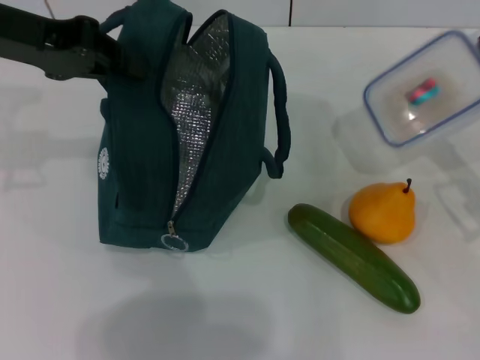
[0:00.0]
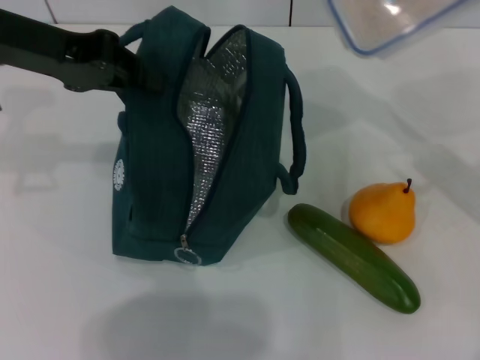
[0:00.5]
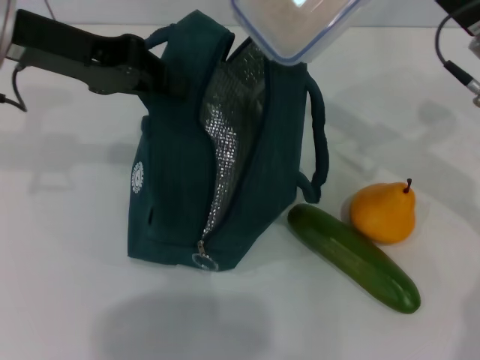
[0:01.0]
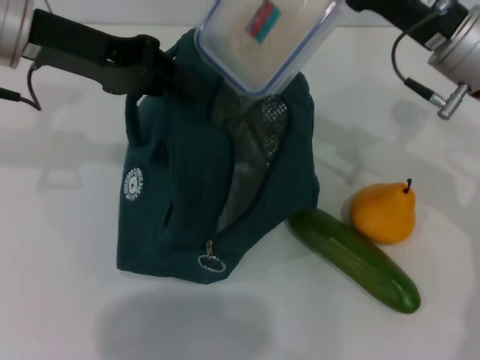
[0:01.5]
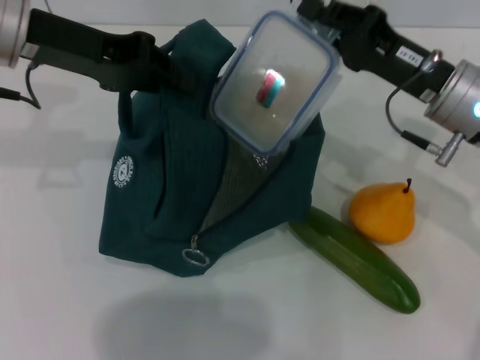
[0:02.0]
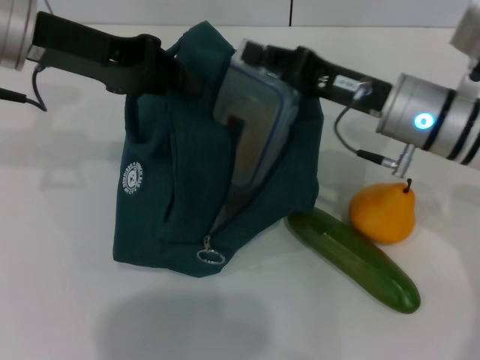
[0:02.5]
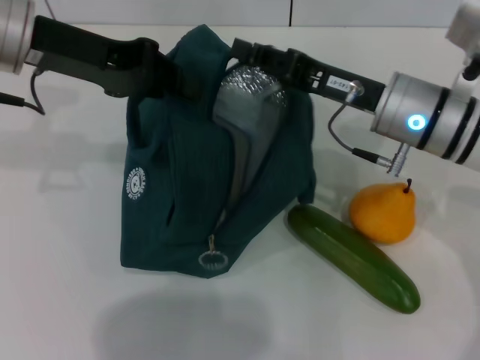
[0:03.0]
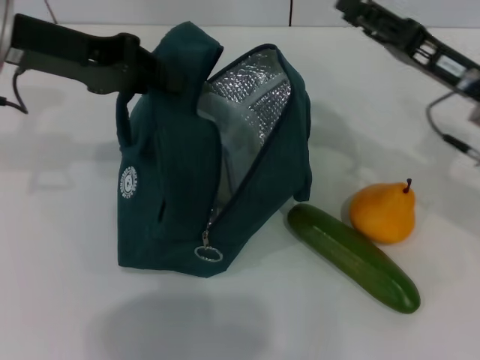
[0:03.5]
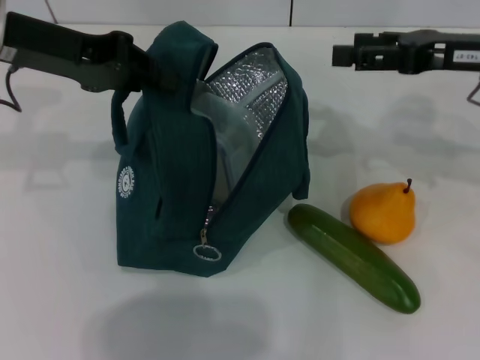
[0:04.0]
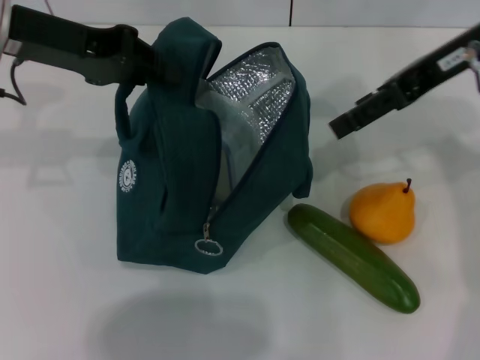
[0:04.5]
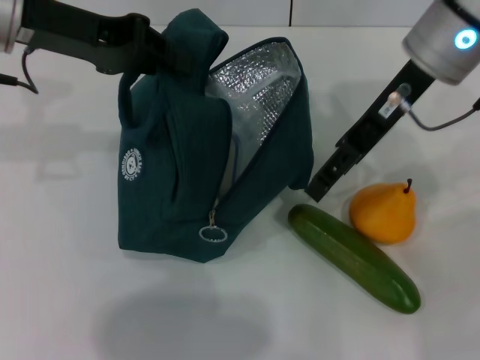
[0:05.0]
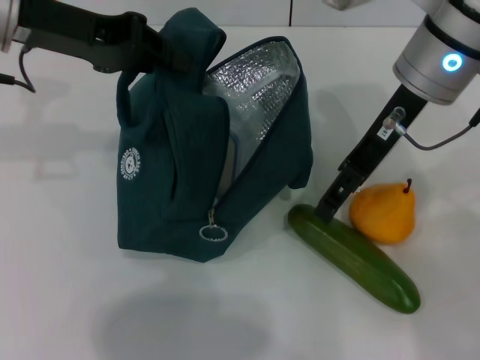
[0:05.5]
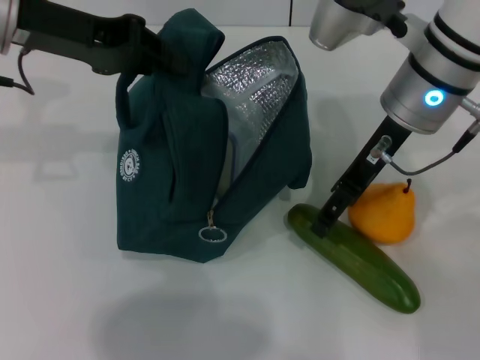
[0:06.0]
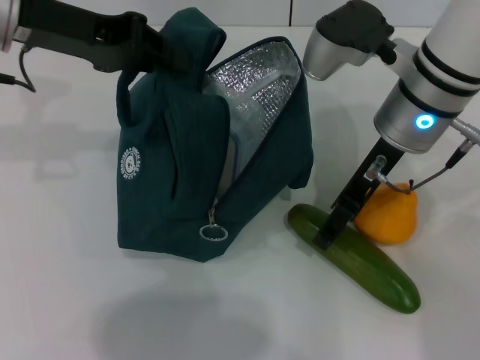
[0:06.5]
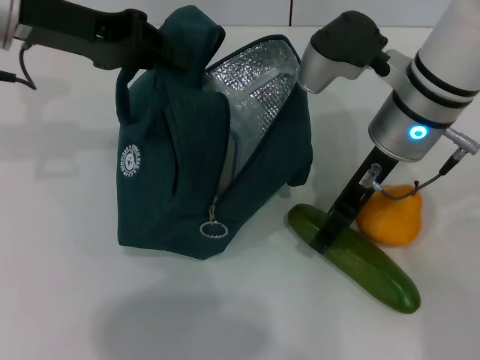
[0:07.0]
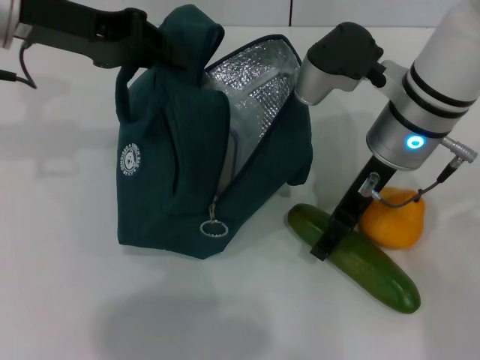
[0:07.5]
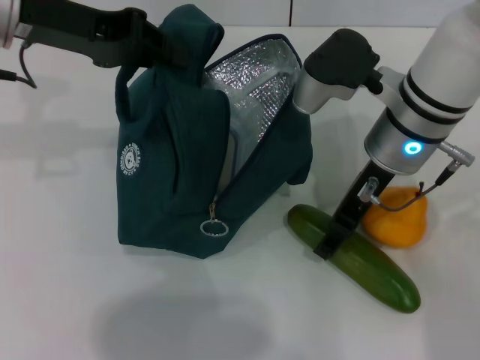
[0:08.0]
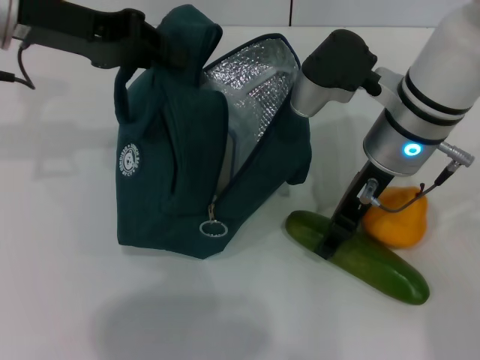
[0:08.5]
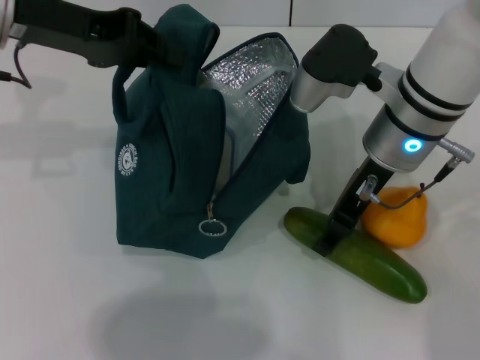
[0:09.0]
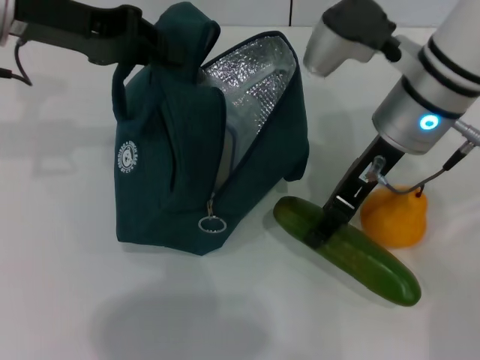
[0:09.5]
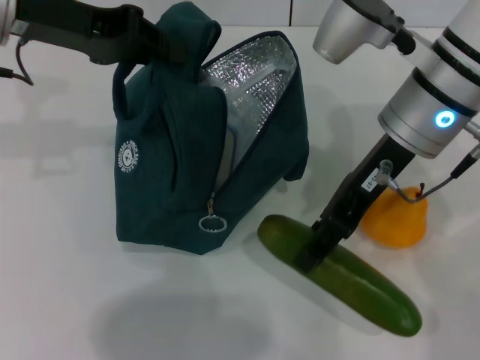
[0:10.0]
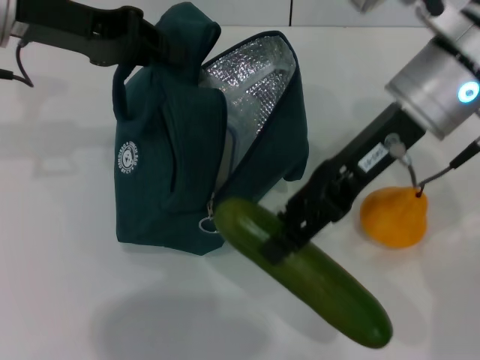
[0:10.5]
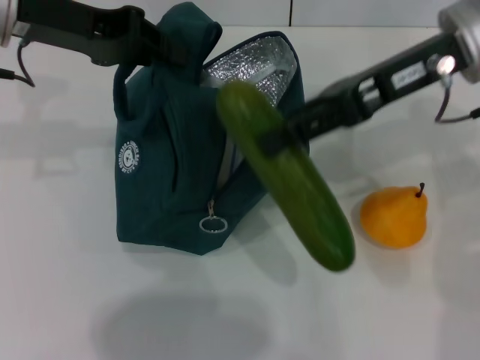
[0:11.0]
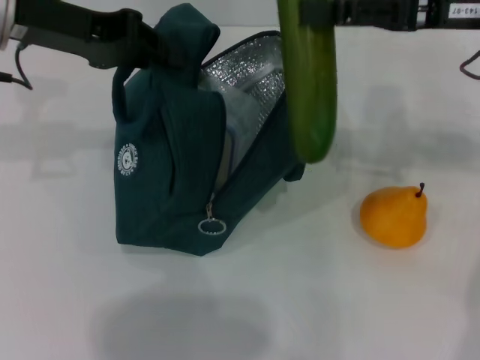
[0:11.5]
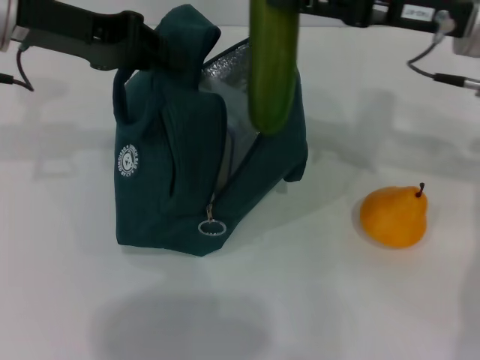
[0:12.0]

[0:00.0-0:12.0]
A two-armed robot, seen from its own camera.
Step, 0:00.0 to 0:03.0: Place the lunch box into the lunch bag with your right hand.
Step, 0:03.5 to 0:08.5: Pick up the cucumber with your right hand.
0:00.0 to 0:02.0: The right gripper travels to the left, forward and upward by about 15 cm.
0:02.0 to 0:04.0: The right gripper shifts some 10 cm upward and to the right, and opens its fingers.
0:04.0 to 0:06.0: The right gripper travels to the left by about 15 cm.
0:06.0 to 0:08.0: There are only small adjustments of the grippers.
0:10.0 to 0:12.0: The right gripper shifts some 5 cm to the right.

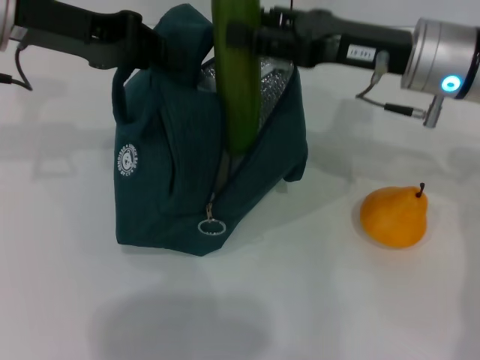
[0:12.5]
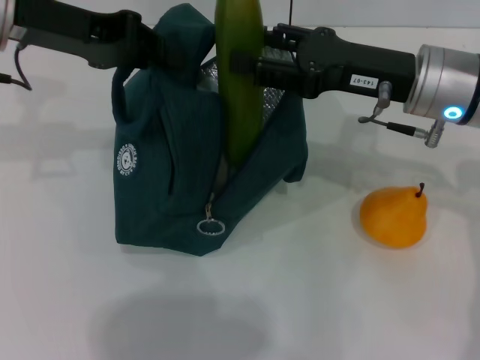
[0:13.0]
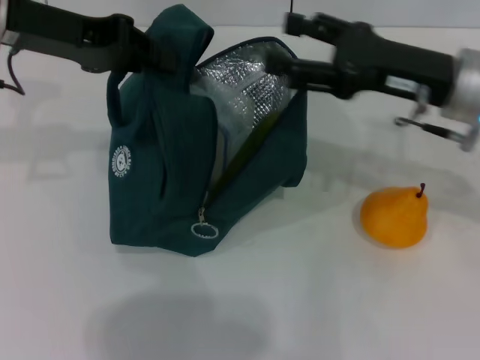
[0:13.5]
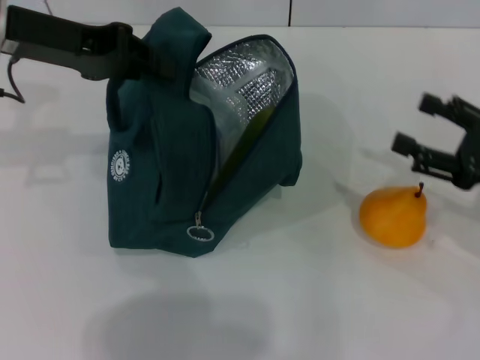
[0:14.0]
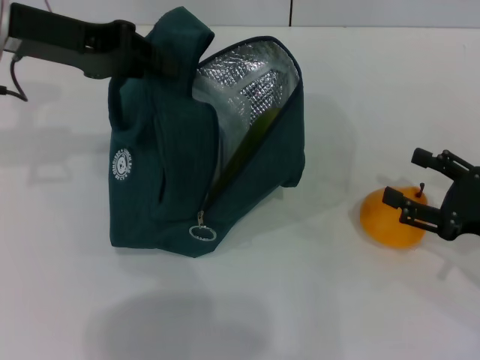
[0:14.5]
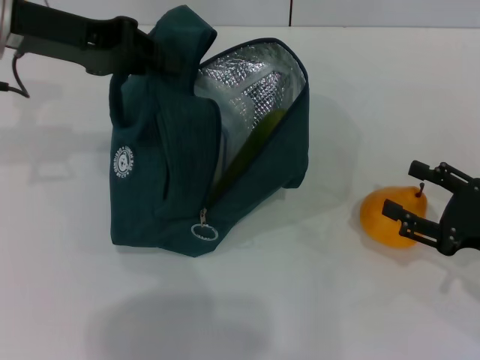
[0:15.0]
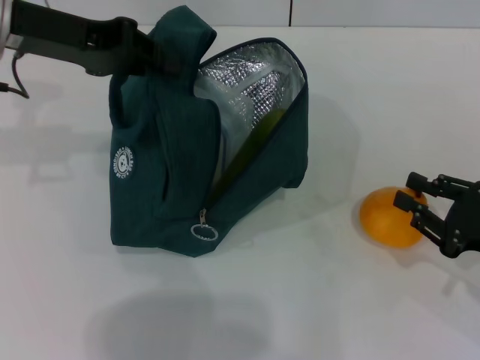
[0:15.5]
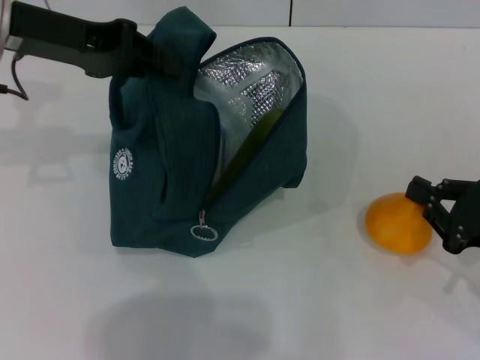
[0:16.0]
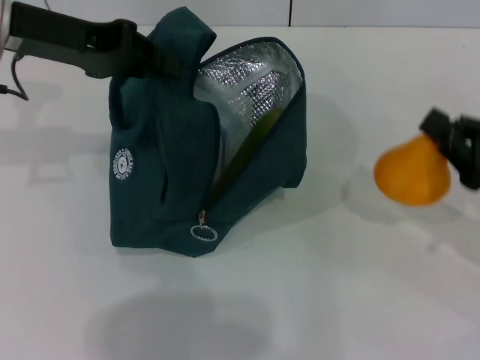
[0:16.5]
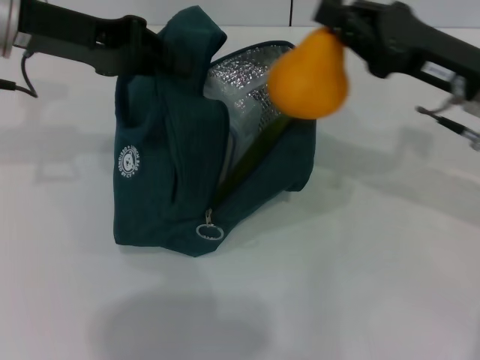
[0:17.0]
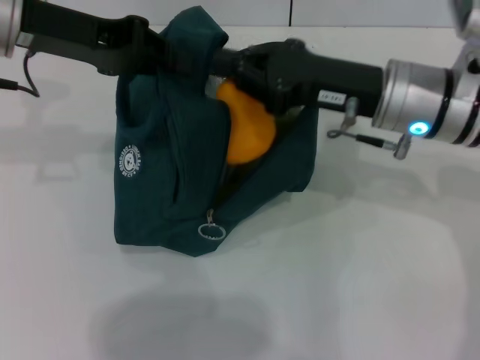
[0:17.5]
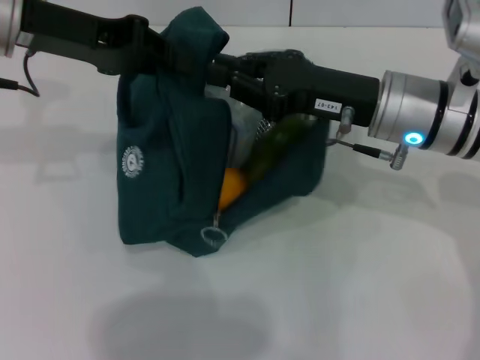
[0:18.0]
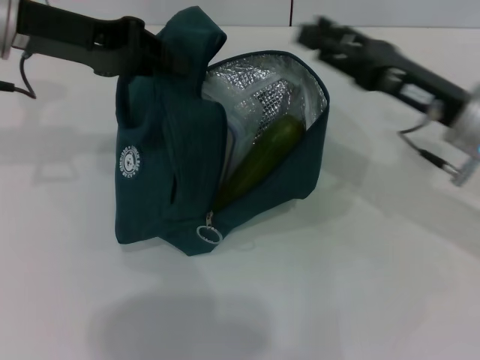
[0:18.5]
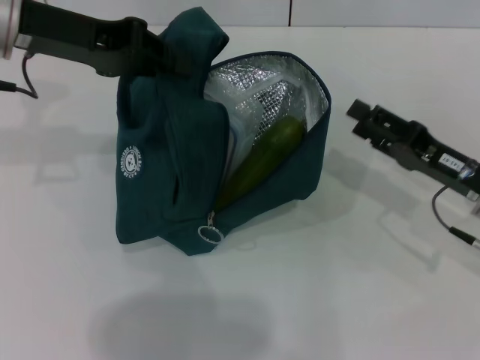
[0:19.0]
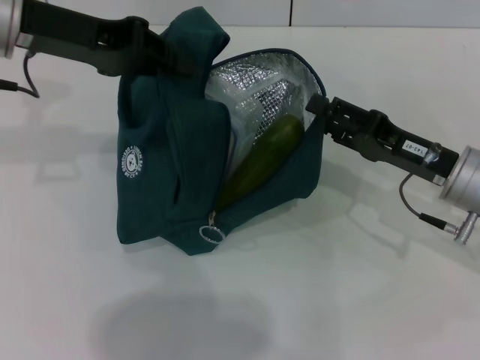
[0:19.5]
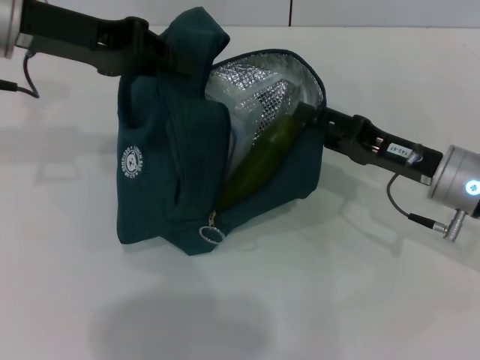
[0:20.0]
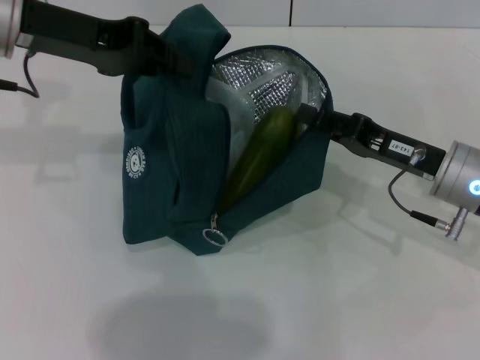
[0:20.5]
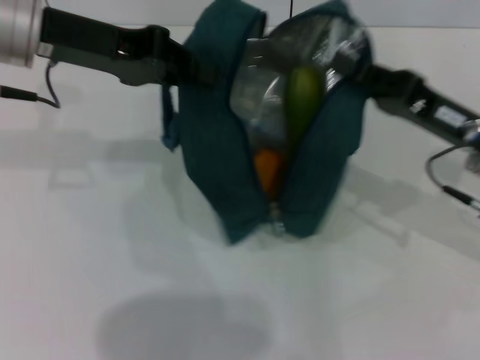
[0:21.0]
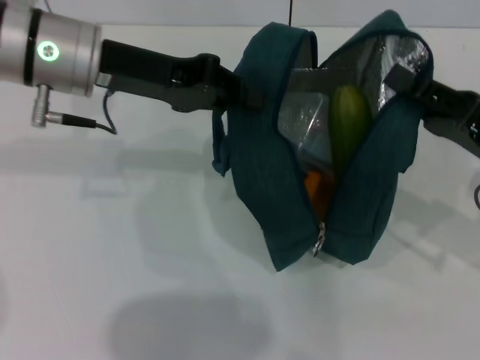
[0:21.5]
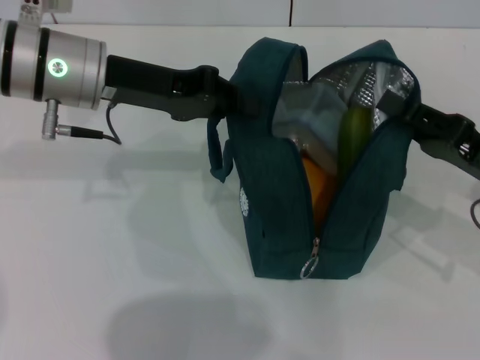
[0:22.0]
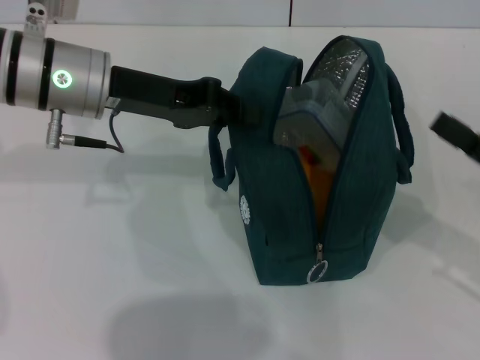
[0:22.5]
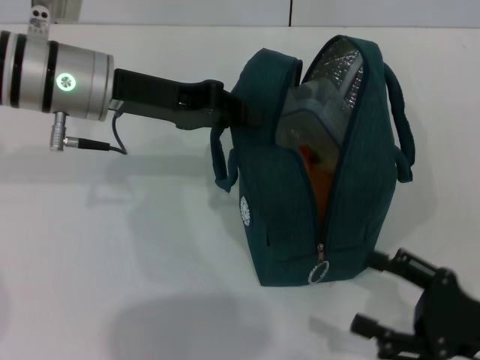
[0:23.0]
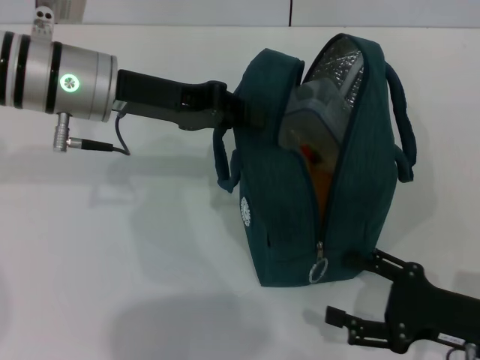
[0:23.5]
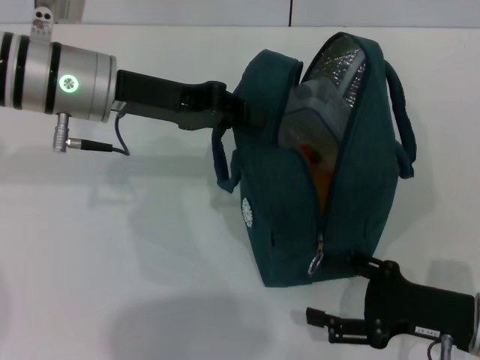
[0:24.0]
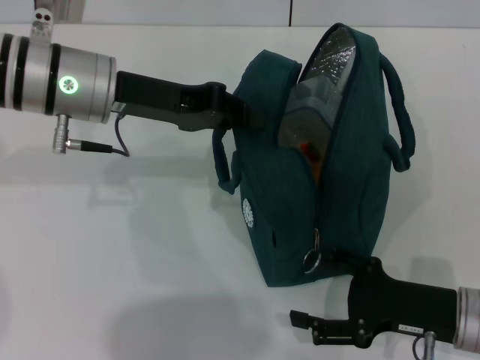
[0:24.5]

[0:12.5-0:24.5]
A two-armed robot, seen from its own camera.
Step, 0:14.0 to 0:16.0: Grab the pear with your right hand.
Step, 0:18.5 to 0:22.5: Hold the lunch bag with your right hand.
0:12.5 to 0:14.5: The right gripper heads to the right, downward and backward, covering approximately 25 cm.
0:14.5 to 0:16.5: The right gripper closes up.
0:16.5 to 0:18.5: The right gripper travels to the left and forward by roughly 10 cm, and opens its fingers.
0:20.5 to 0:22.5: The right gripper shifts roughly 15 cm to the right and backward, and closes and opens again, while the left gripper moves downward, roughly 5 cm.
0:22.5 to 0:24.5: The right gripper is displaced to the left and downward by approximately 10 cm, and opens its fingers.

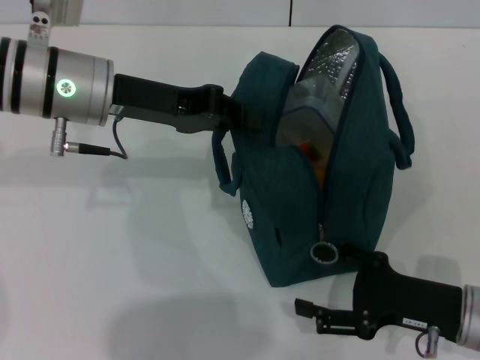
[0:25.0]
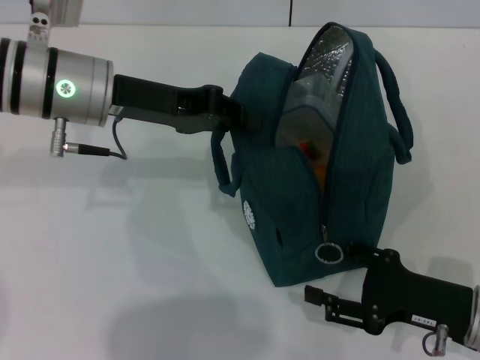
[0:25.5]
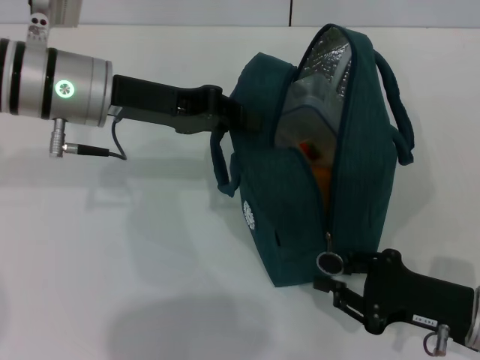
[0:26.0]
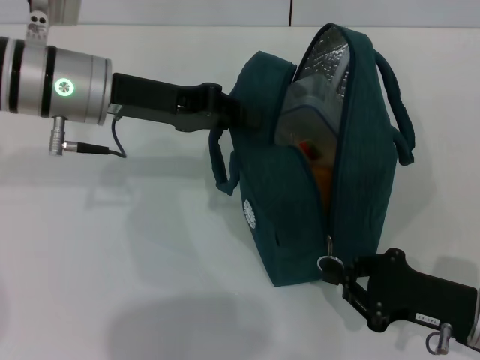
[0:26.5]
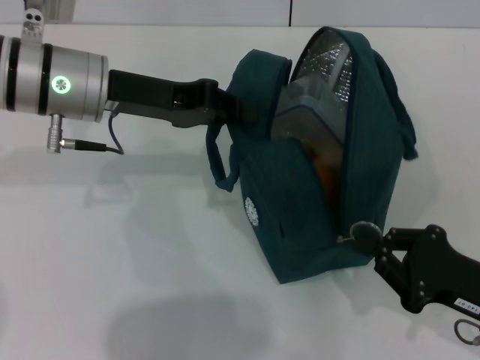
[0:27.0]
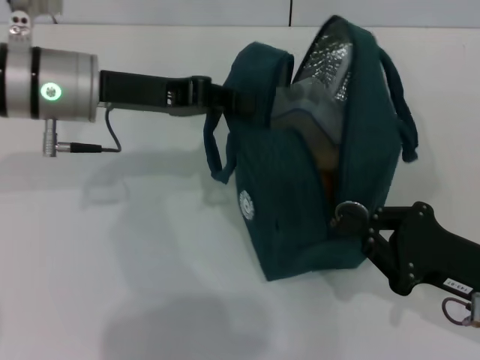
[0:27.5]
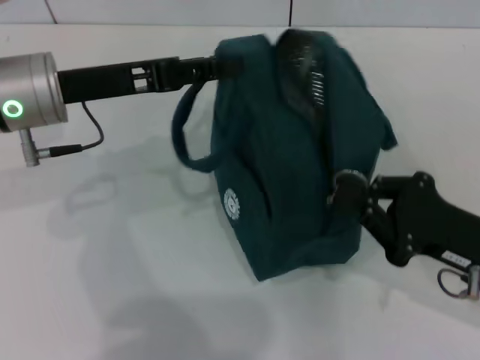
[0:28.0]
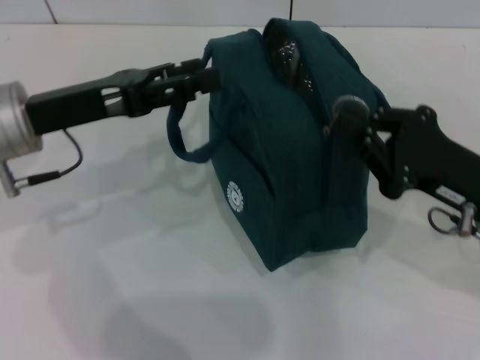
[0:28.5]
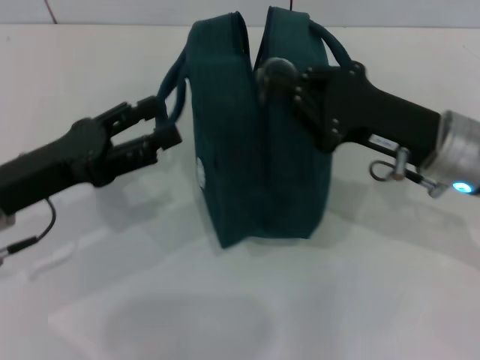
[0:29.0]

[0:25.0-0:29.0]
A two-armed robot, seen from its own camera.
Step, 0:25.0 to 0:28.5: Hold the lunch bag with your left hand.
0:25.0 to 0:27.0: The right gripper closes up.
0:27.0 to 0:29.0: The left gripper heads backward, to the left and downward, covering roughly 15 cm, and opens its fingers. Meanwhile the right gripper shifts roughly 15 cm forward, upward and to the left.
